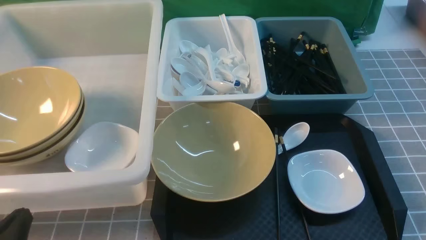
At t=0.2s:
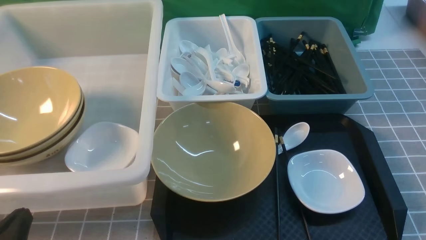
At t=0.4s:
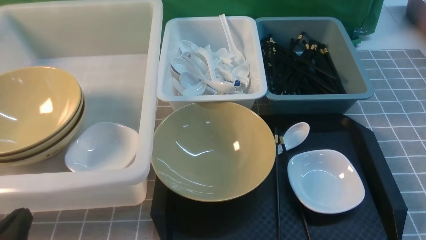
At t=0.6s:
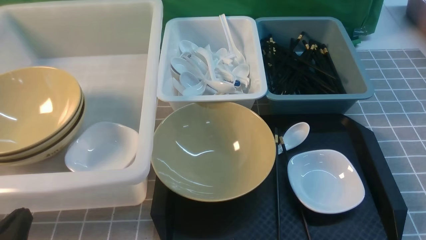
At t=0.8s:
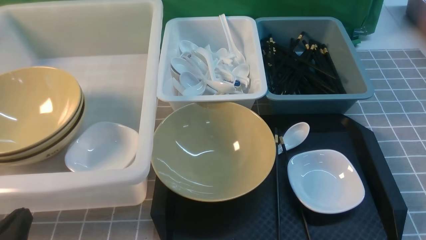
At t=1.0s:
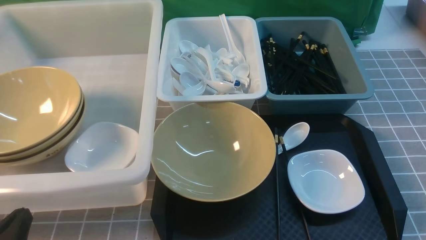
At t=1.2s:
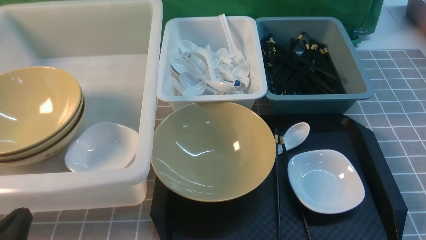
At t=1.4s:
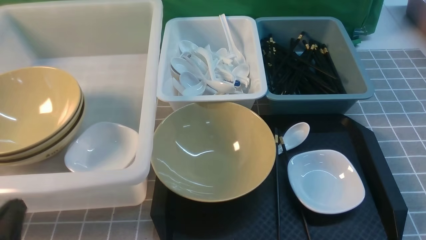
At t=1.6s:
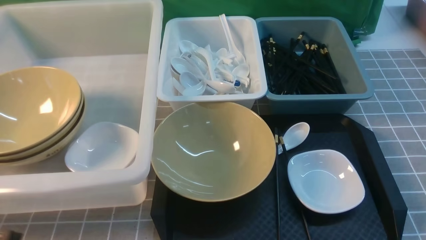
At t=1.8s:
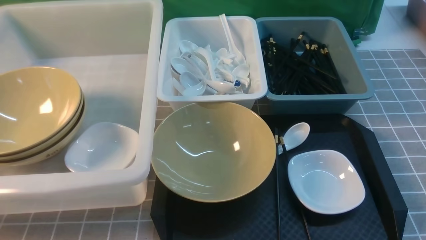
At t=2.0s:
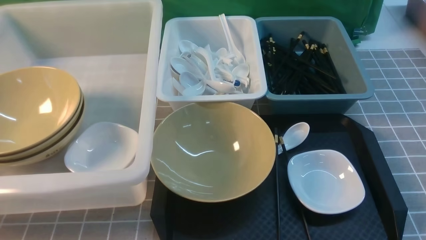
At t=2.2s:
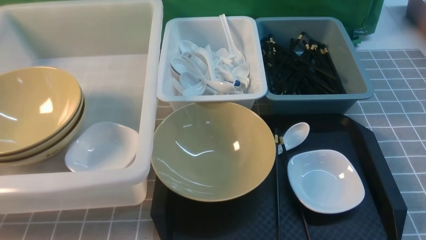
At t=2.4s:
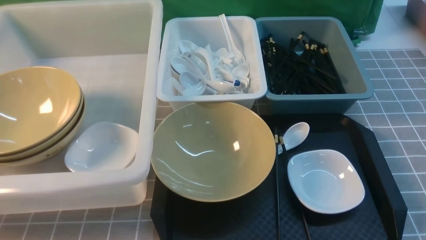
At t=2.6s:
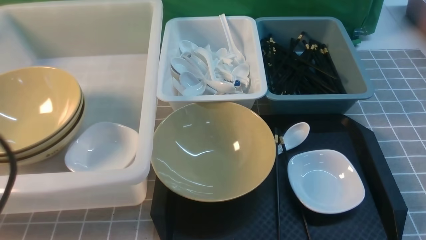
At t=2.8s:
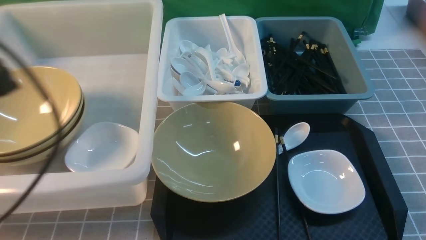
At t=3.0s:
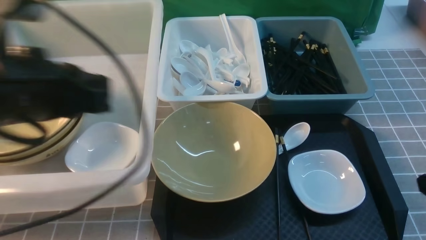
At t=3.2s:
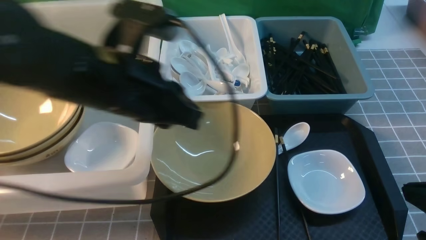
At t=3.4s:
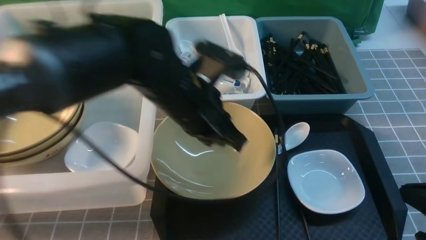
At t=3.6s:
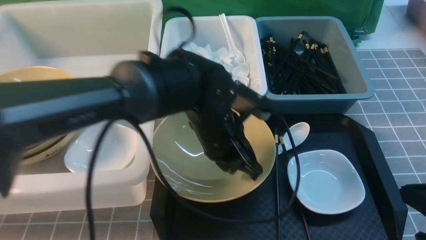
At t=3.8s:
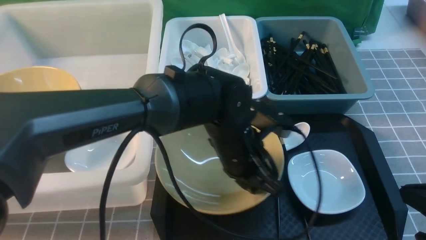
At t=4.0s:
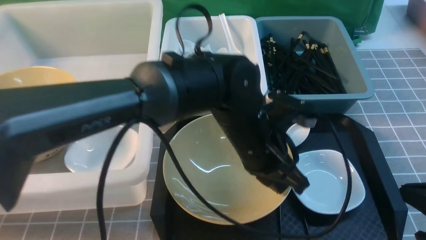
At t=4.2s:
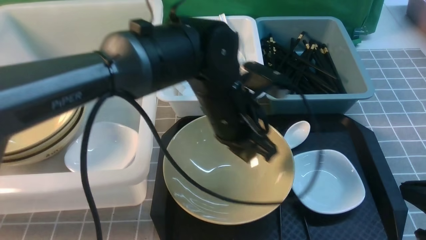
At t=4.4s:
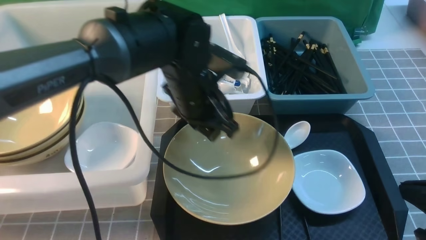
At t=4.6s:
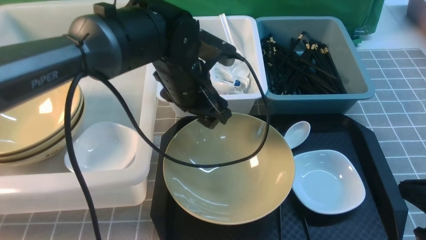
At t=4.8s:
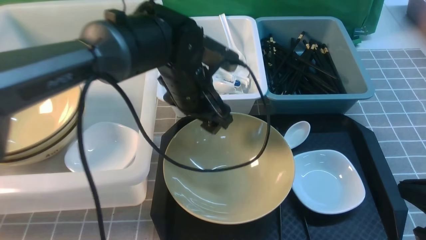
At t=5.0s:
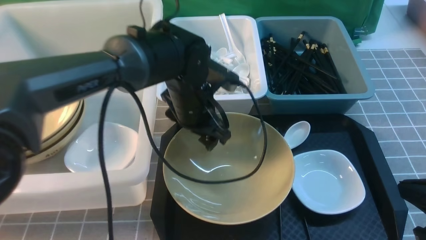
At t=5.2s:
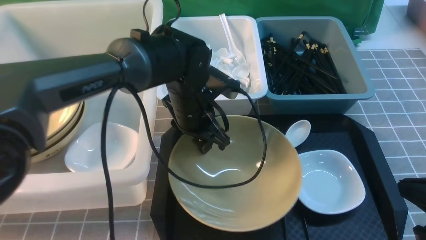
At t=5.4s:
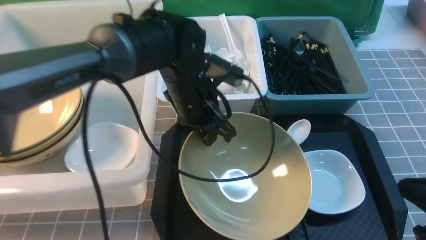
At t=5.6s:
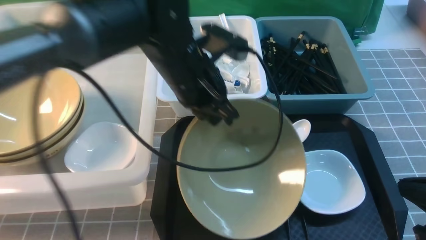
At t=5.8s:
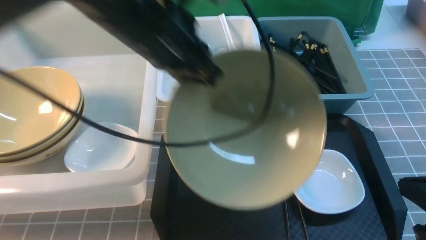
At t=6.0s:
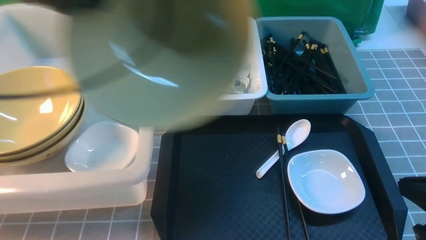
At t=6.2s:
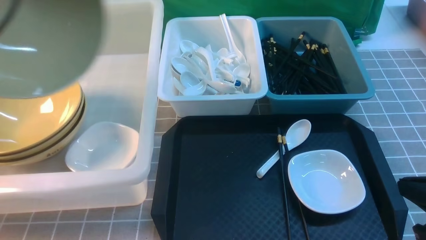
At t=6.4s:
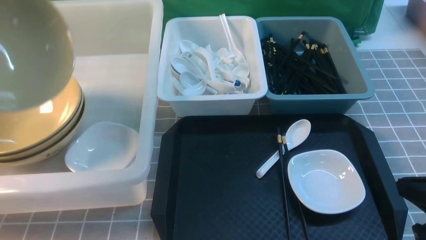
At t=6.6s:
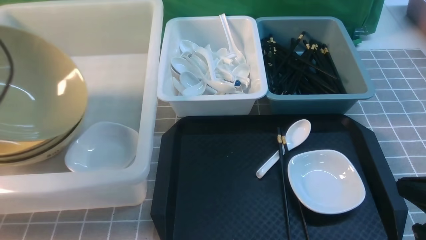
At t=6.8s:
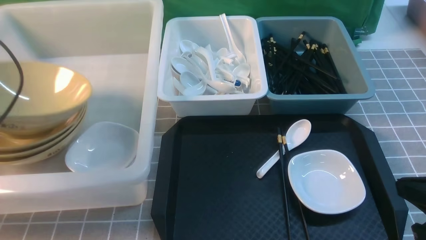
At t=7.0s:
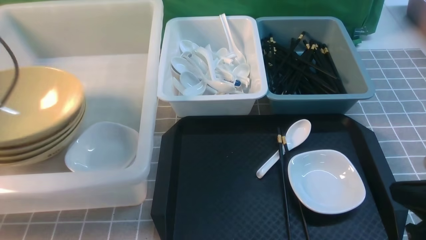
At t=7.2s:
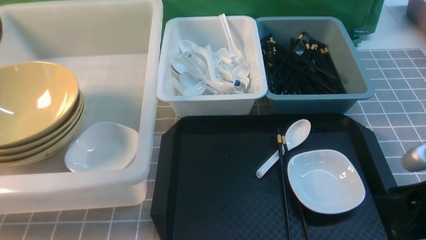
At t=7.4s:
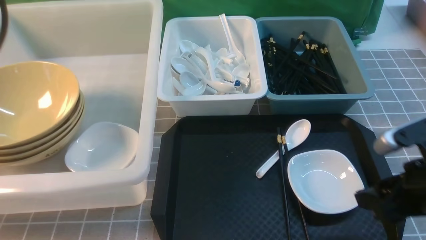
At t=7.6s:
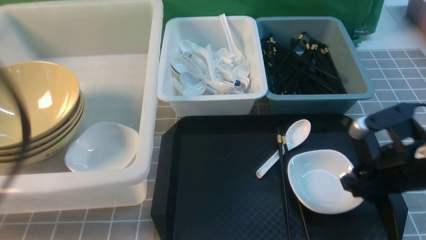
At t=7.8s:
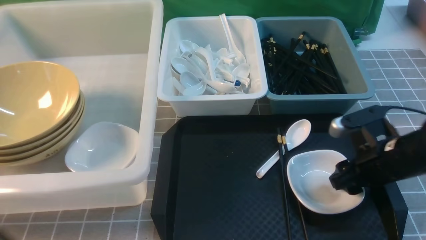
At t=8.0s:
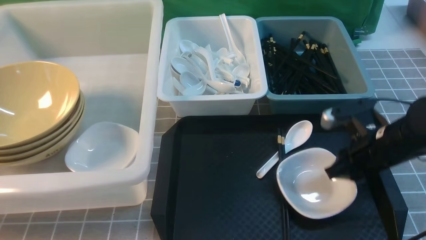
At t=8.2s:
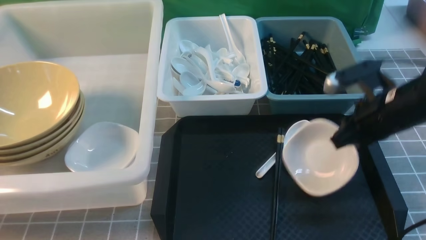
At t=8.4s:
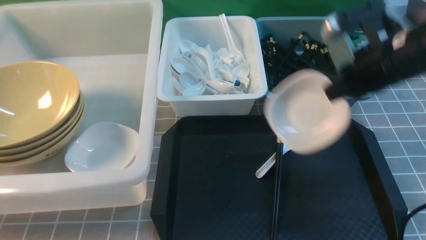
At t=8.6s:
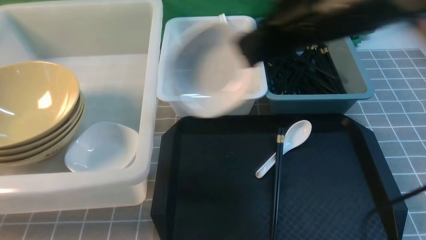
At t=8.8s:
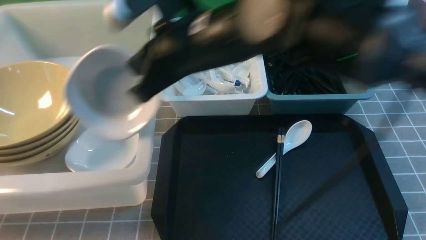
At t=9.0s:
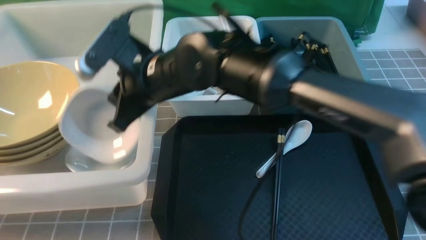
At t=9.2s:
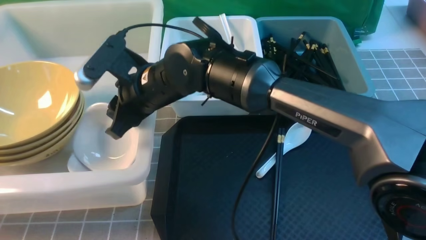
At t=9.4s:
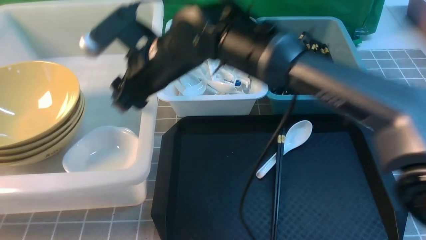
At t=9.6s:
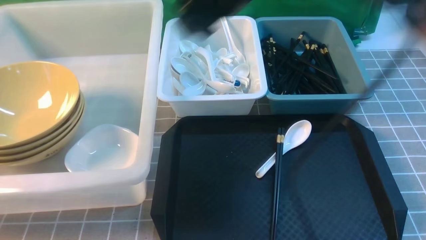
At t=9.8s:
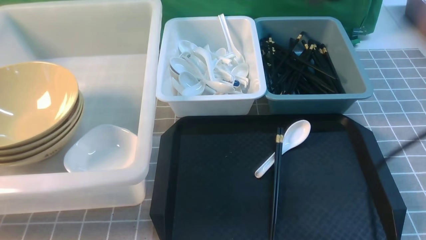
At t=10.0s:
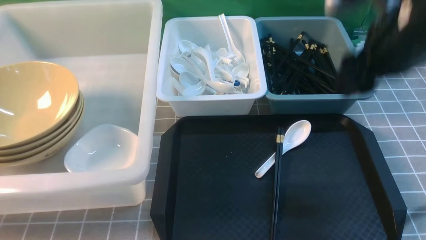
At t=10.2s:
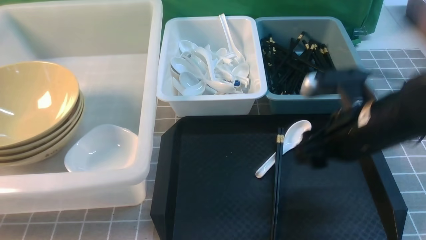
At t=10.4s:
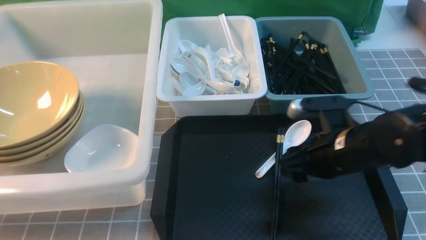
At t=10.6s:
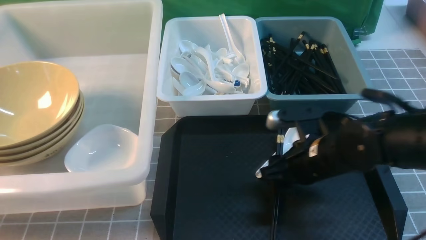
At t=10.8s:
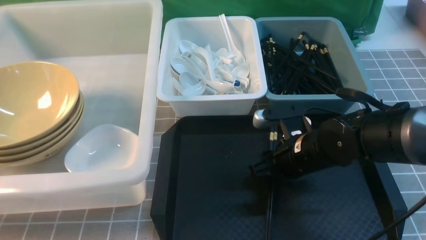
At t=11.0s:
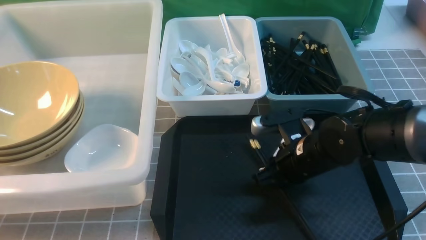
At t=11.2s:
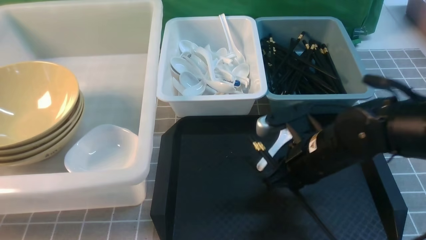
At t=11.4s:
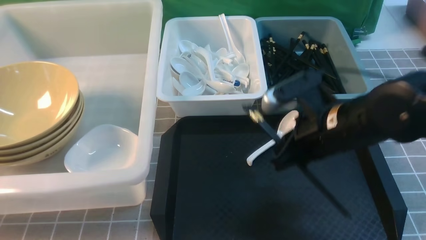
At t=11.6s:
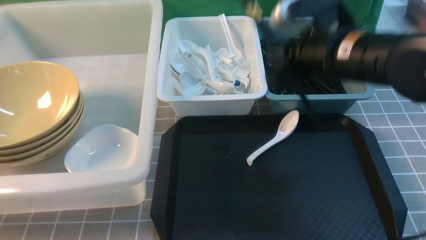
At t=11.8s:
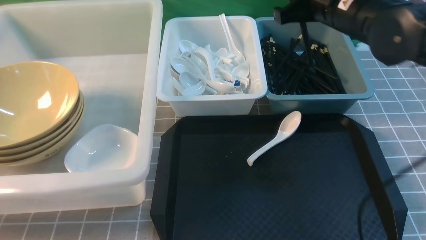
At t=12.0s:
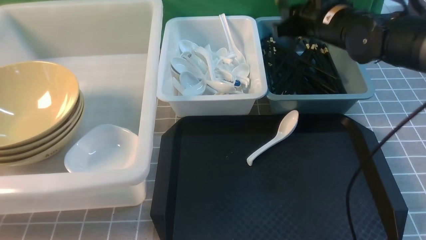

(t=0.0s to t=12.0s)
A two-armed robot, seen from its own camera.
Task of the whole recording: on grey table put chopsticks spoon bowls plates into blue grey white boxes.
Step, t=0.0s - t=5.8s: use the left arm to grab the yellow noodle bowl on the left.
Step, t=6.0s - t=7.0s: use the left arm to put the noodle bowl into the large storage box on the left.
Step, t=7.2s - t=8.2s: use the right arm to grab the plate.
Step, t=8.4s - t=9.2s: use the right arm to put the plate into the large storage box on the left.
Step, t=9.6s - t=11.2s: use the right arm to grab the chopsticks.
t=1.6s - t=3.0s: The right gripper moves forward, approximately 5 cm, and closes. Meanwhile the left gripper shifts approximately 20 cm forward, upward and to the right.
t=3.0s - t=4.4s: The left gripper heads to the right, forward and downward, covering some 20 cm, and opens its fingers.
t=4.4s - t=6.0s: The left gripper goes approximately 25 cm to the left and upward, and closes up.
t=6.0s - t=7.6s: The left gripper is displaced backward by roughly 15 cm, and opens, then closes once more. Meanwhile the right gripper travels forward and downward by approximately 10 cm, and opens.
t=7.6s - t=9.0s: The left gripper heads downward and backward, covering some 15 cm, and closes, while the right gripper moves to the left, about 30 cm, and closes.
t=9.0s - t=10.4s: The right gripper is displaced to the right and downward by about 25 cm, and opens.
t=10.4s - t=12.0s: The right gripper travels forward and upward by about 20 cm, and closes its fingers.

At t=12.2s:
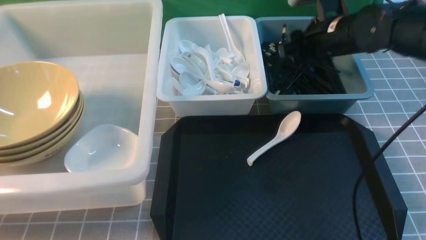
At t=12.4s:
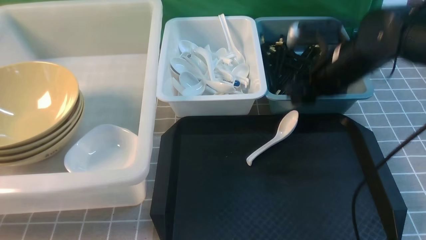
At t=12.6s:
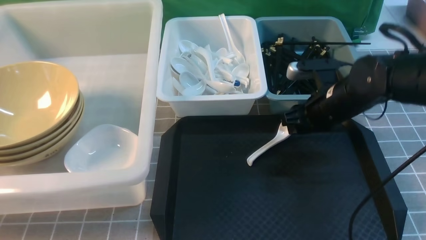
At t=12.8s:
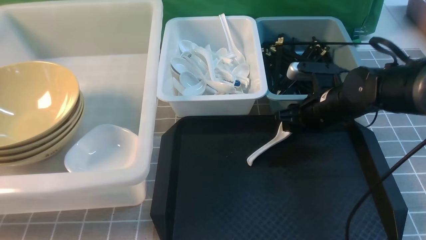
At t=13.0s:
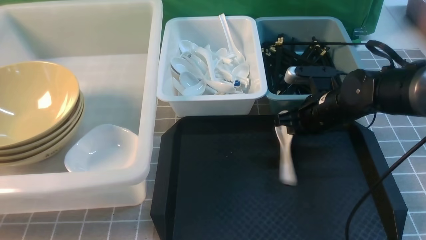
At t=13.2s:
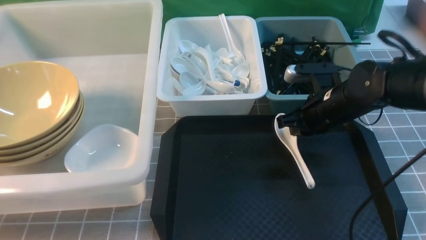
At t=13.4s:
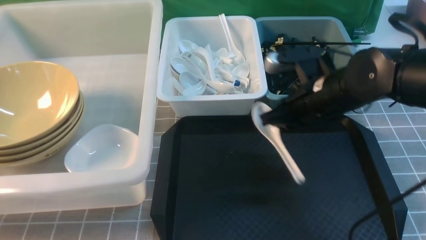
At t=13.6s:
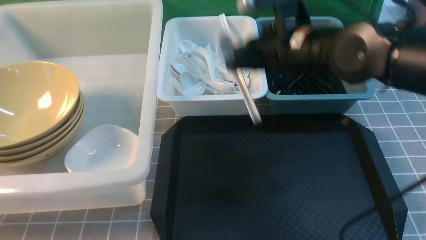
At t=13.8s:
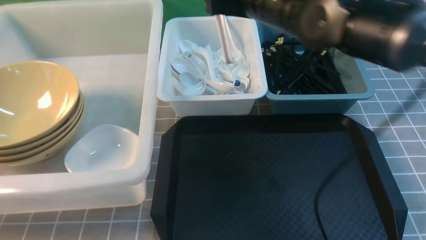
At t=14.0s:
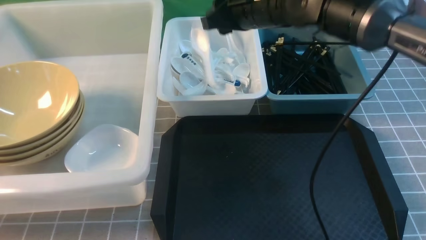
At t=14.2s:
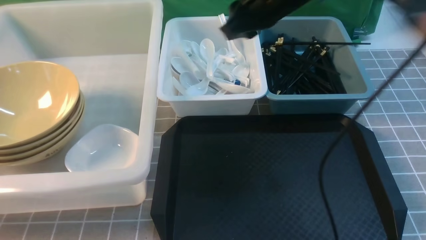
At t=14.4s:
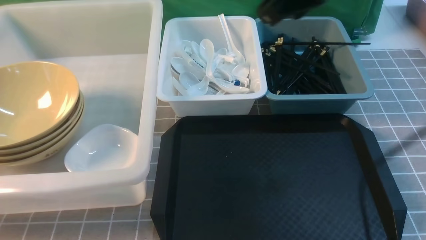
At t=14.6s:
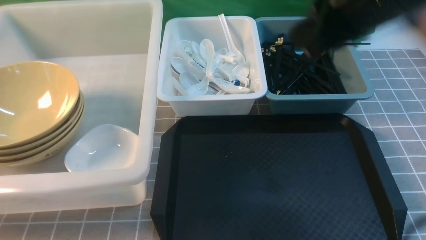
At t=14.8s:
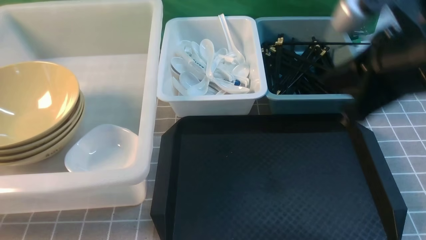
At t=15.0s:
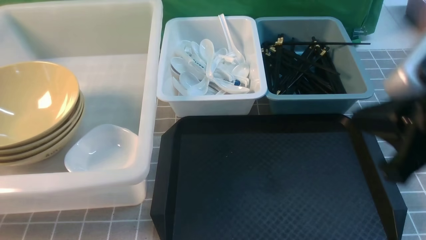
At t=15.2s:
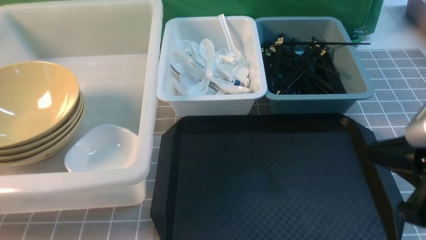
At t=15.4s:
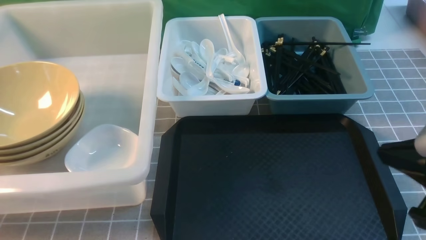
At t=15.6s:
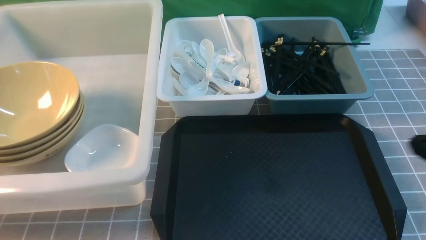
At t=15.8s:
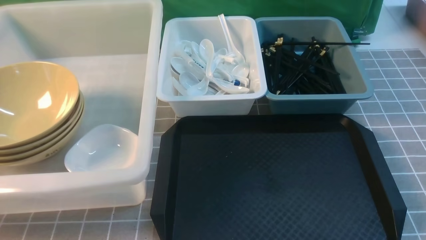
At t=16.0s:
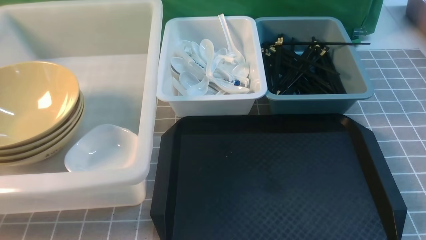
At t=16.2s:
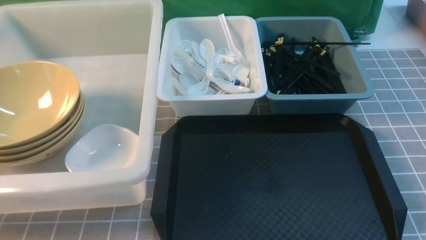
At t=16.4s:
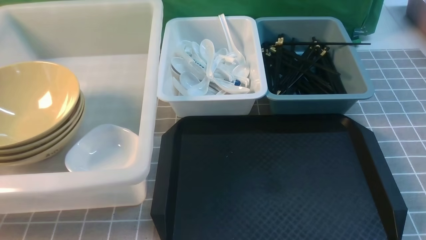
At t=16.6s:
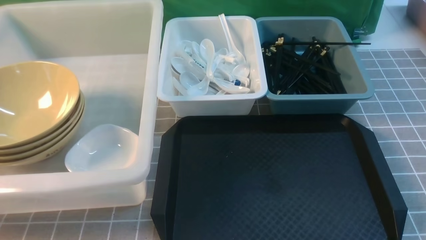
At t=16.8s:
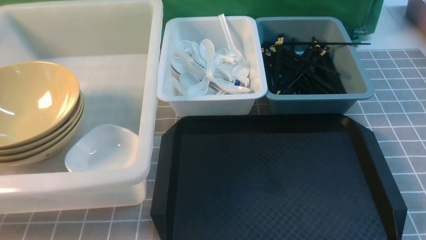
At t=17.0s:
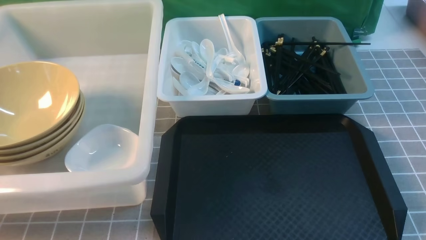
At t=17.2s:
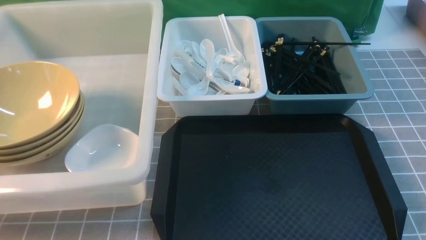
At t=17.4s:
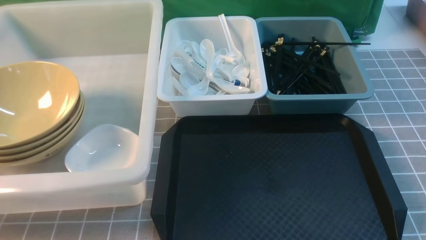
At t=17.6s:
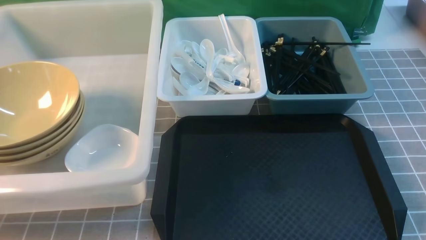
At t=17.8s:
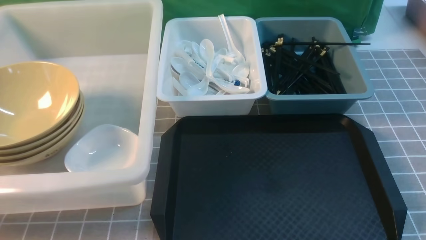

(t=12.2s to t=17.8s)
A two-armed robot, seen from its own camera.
Task of the whole recording: on grey table put chopsticks spoon bowls plates into blue grey white boxes.
Step, t=12.4s - t=13.2s: use the right arm to grab the soup spoon in the middle.
Step, t=13.4s - t=14.2s: use the right arm to put the soup spoon into the small storage box in the middle.
t=12.2s - t=13.6s: The right gripper travels to the left by approximately 10 cm, and closes.
t=13.6s - t=15.0s: The right gripper heads backward and to the right, covering approximately 25 cm.
t=15.0s - t=16.4s: The right gripper travels downward, backward and to the right by about 20 cm.
